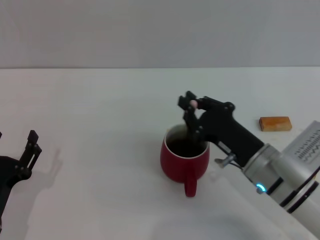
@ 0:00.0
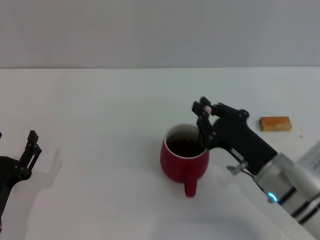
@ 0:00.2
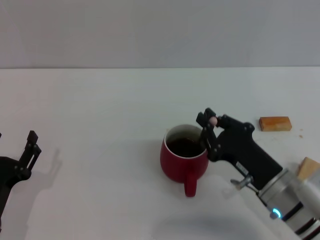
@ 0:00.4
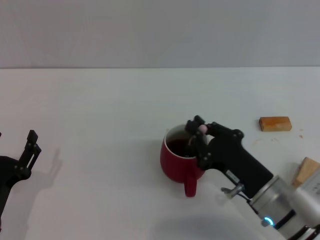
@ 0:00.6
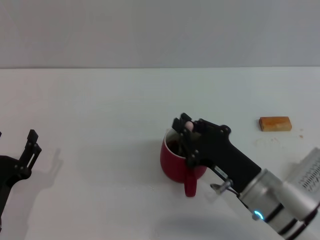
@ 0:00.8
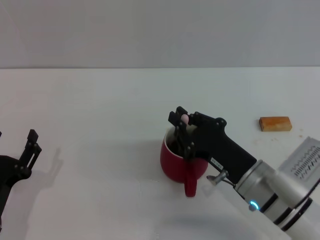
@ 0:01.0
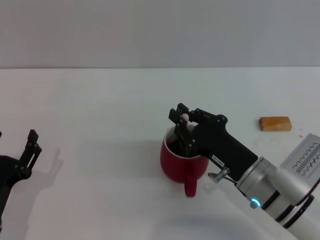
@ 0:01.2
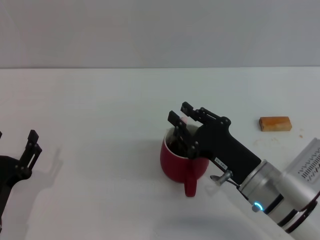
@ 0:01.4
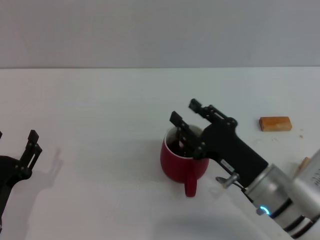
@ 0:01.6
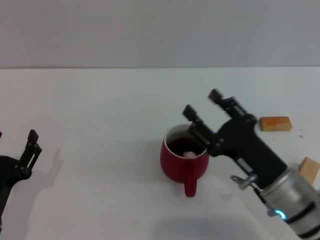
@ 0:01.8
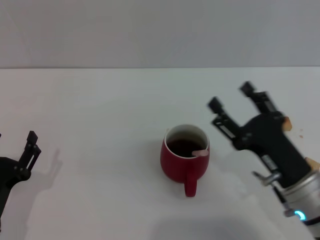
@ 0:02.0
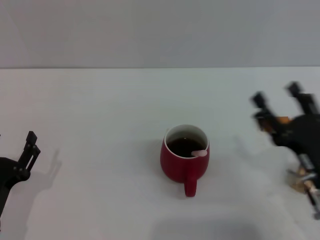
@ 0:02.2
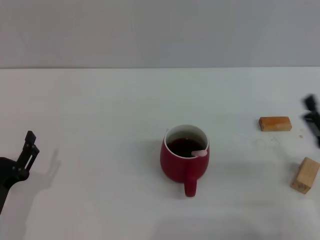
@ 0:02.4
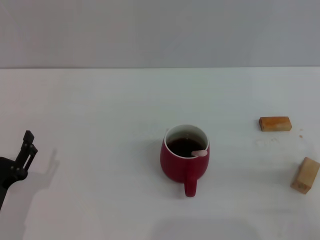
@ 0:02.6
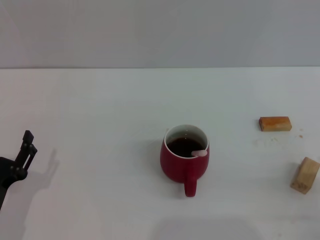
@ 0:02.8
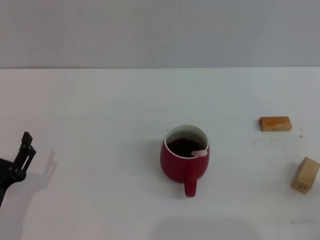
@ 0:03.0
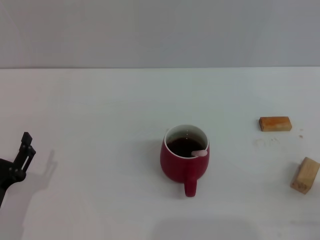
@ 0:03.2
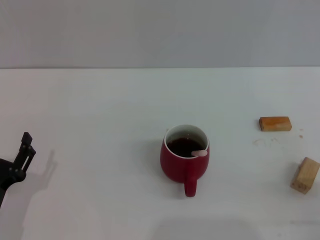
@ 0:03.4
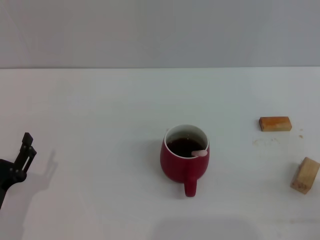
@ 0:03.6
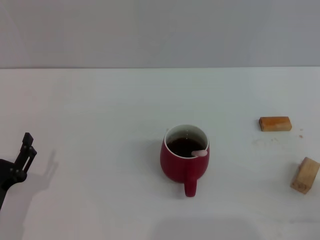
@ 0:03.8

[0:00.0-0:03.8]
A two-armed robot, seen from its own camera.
Task of the whole recording: Move the red cup to the center, lift the pink spoon, stir it three times in the cup, and put the spoon into the cup.
0:00.0 to 0:01.2: The grippers make only small movements.
0:01.2 to 0:02.6: The right gripper heads to the right and backward, covering some 15 cm, and opens up.
